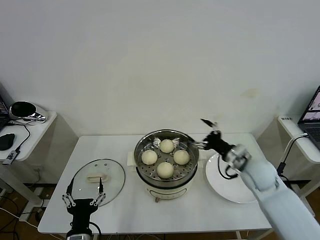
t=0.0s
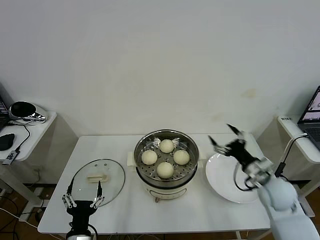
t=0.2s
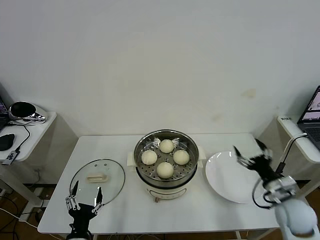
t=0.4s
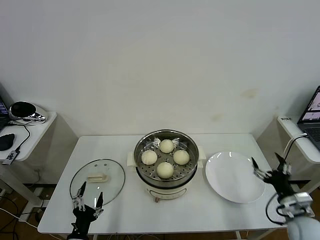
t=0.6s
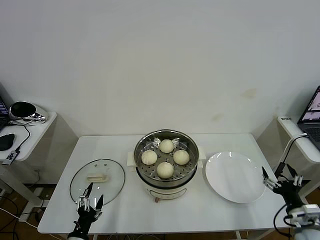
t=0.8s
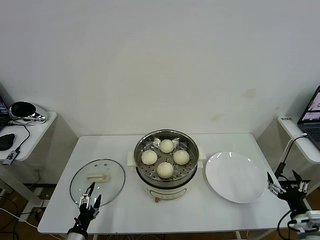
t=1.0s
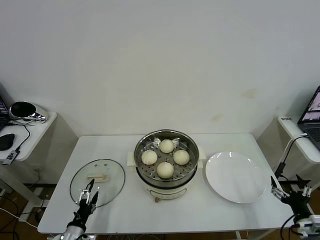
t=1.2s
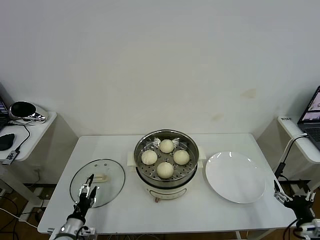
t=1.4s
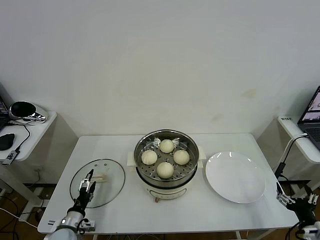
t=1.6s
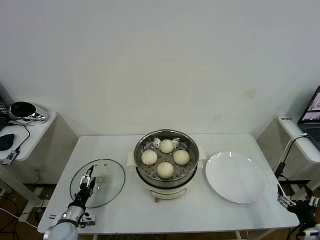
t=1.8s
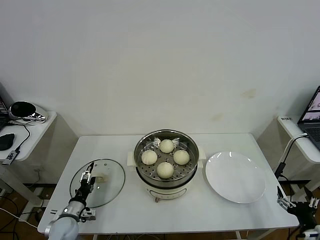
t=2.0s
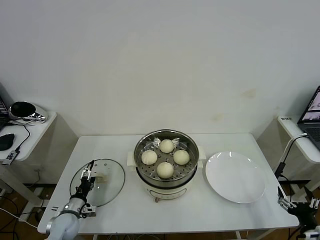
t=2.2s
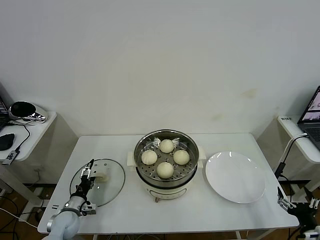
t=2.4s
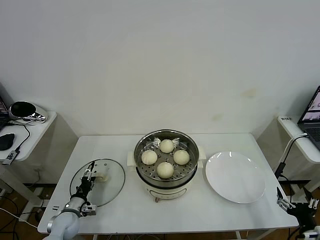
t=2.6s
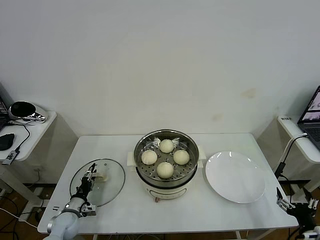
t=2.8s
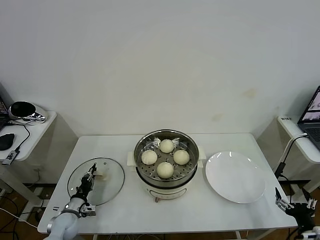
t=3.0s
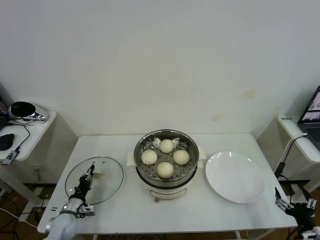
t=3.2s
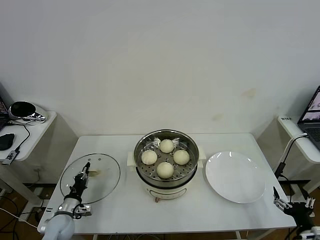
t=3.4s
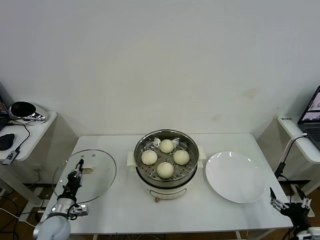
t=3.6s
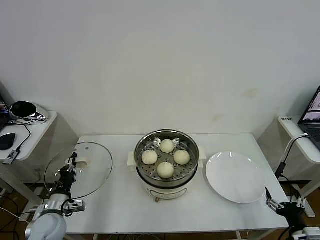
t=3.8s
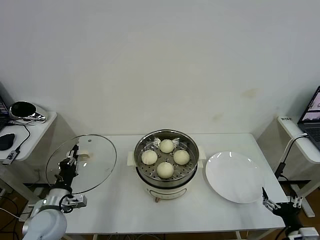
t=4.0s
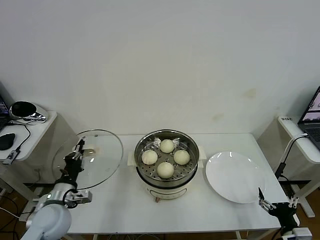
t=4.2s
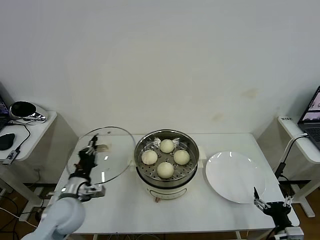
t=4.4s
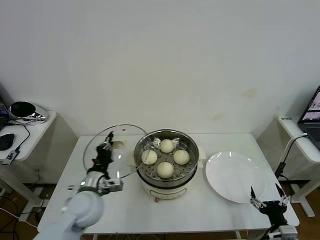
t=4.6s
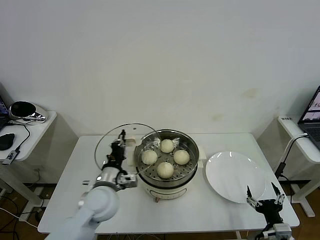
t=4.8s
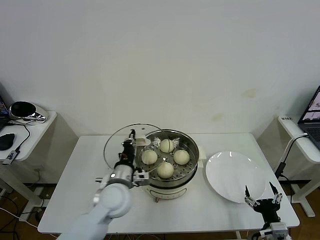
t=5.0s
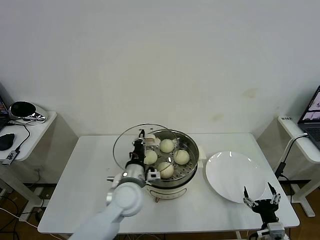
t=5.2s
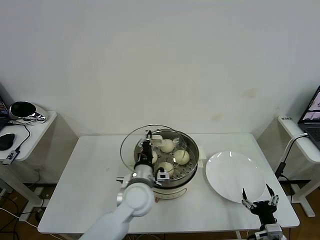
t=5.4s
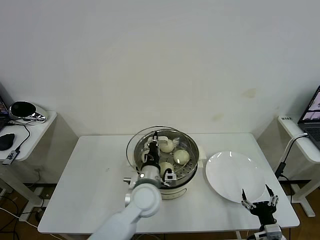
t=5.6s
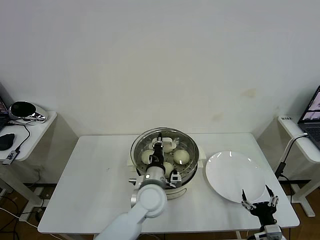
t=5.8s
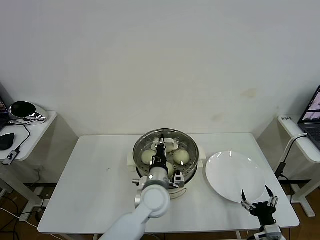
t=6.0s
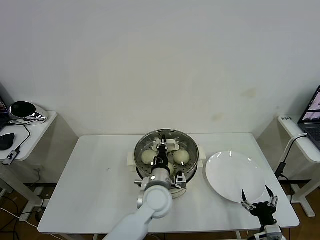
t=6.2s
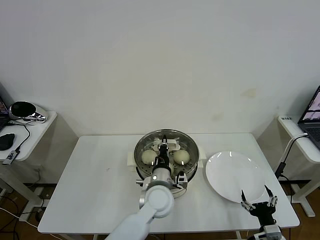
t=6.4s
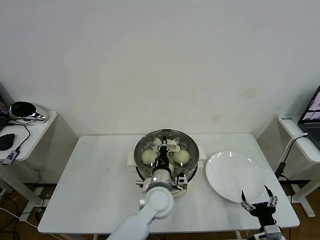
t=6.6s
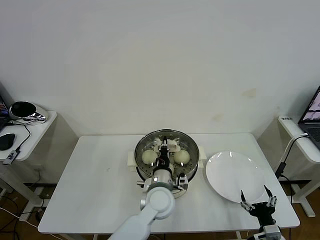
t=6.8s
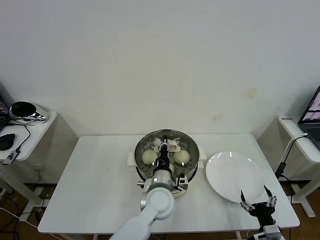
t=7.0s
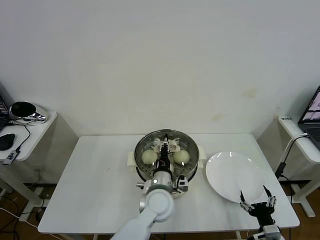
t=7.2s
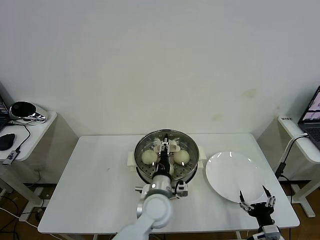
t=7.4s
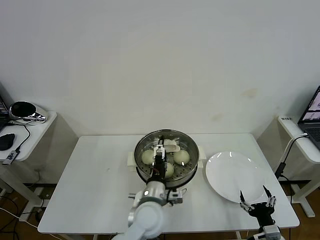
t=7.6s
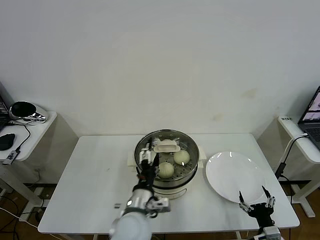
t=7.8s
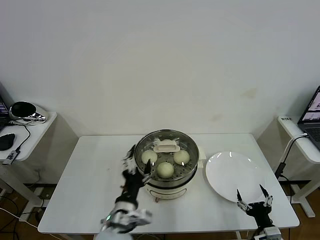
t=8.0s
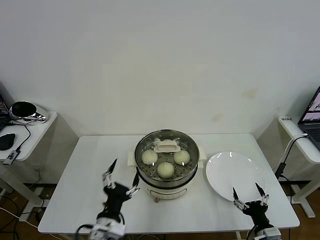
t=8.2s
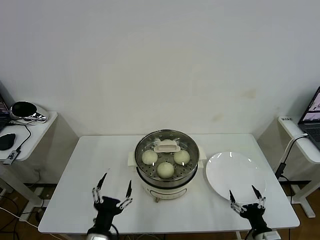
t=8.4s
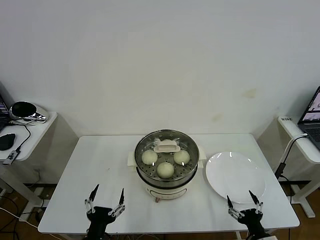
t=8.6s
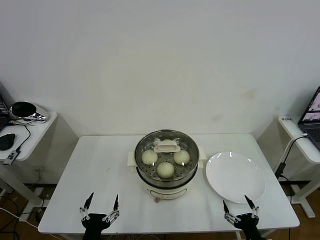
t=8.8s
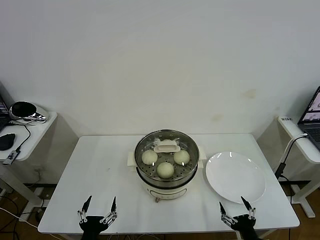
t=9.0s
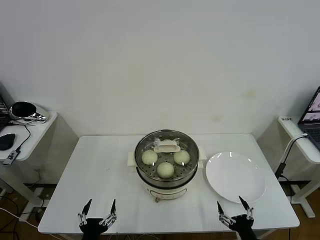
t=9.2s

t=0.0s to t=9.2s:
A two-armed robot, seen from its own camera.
Task of the whole recording: take steamed baozi put them in steamer then cover it.
Step, t=0.0s to t=3.2s: Grasp the pot lid with left gripper.
Step, t=3.4s to t=7.6s: Place the pot lid on the steamer with left gripper.
t=0.0s to t=1.6s: The left gripper goes about 20 cm to the left, downward and forward. Meanwhile the right gripper is displaced backward, to the right and downward by about 30 cm.
t=1.6s to t=3.0s: The left gripper travels forward by some 5 cm, and closes up.
t=3.0s to t=4.6s: The left gripper travels upward and to the right by about 25 cm. The right gripper goes some 5 cm to the left.
t=4.6s to t=6.2s: The left gripper goes approximately 20 cm to the right.
t=6.2s to t=7.6s: The left gripper opens up.
t=7.6s to t=9.2s: The right gripper ends up about 5 cm from where it was. Meanwhile the left gripper moves to the left and backward, approximately 25 cm.
